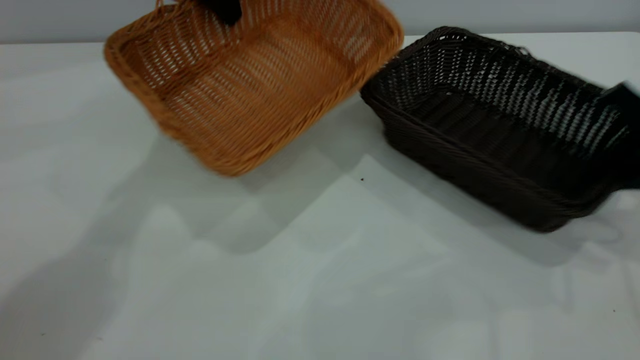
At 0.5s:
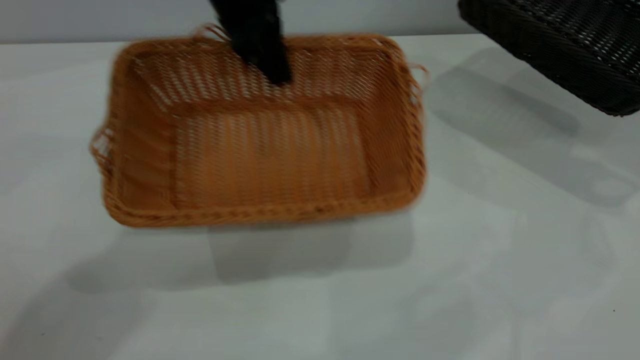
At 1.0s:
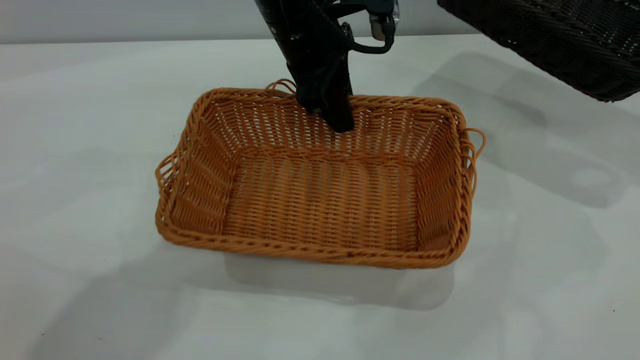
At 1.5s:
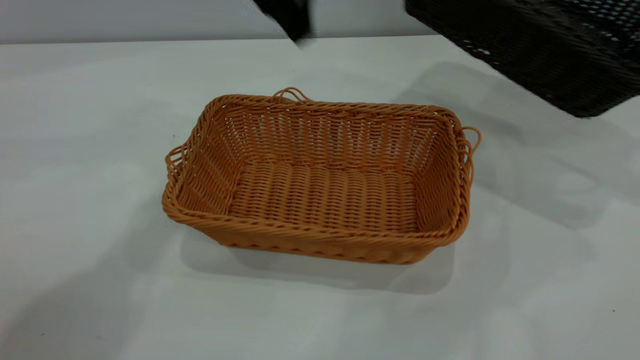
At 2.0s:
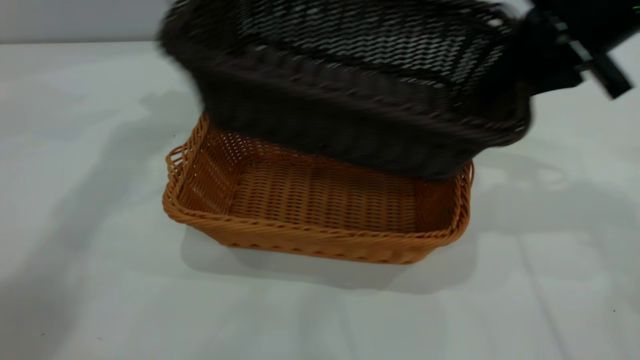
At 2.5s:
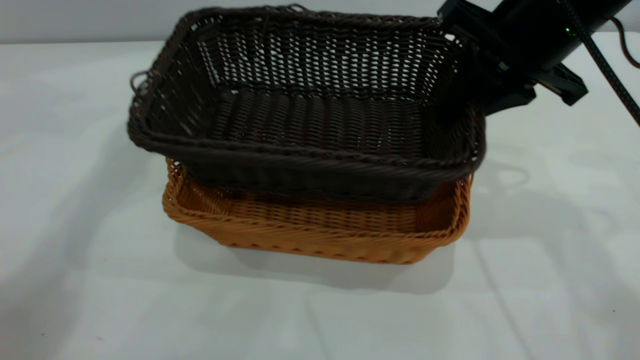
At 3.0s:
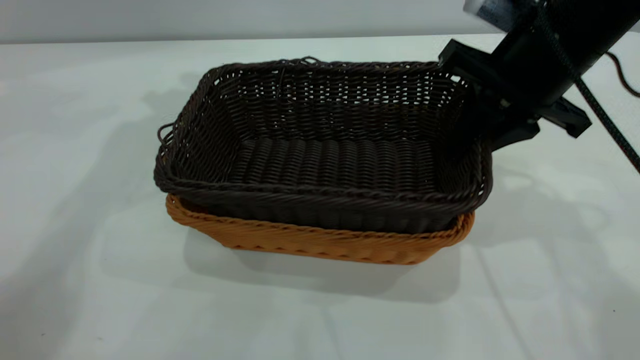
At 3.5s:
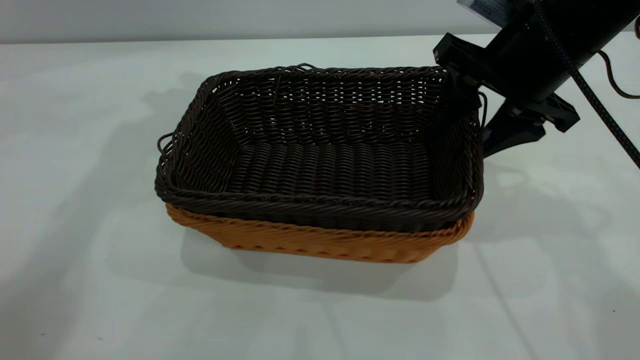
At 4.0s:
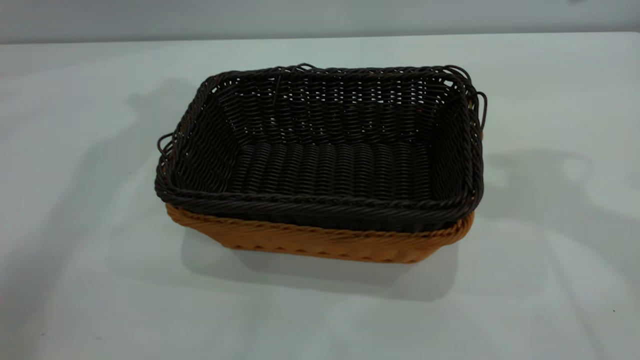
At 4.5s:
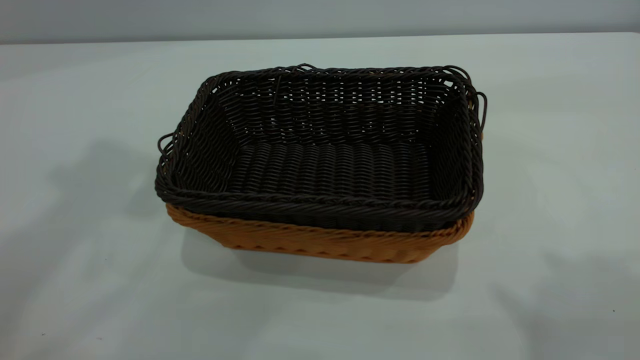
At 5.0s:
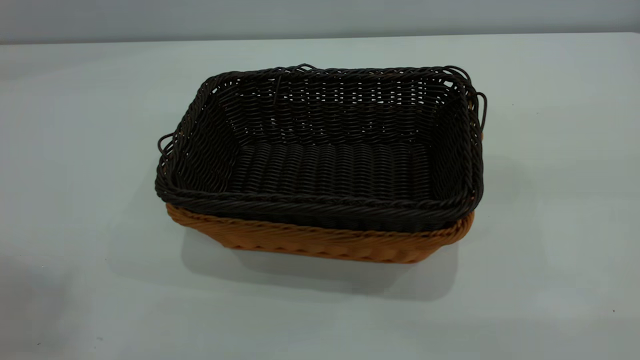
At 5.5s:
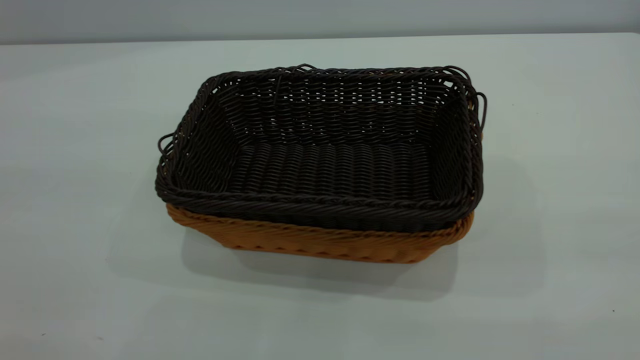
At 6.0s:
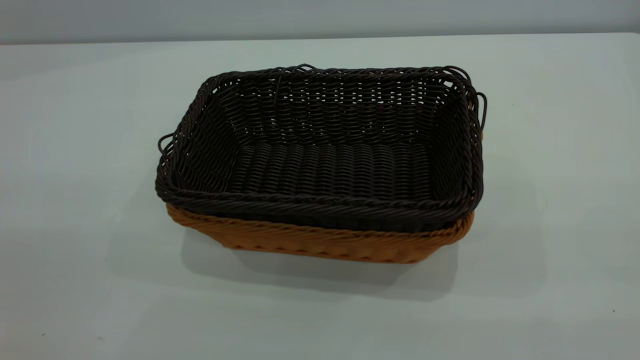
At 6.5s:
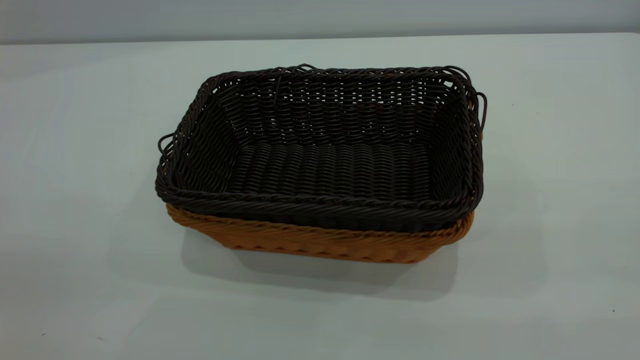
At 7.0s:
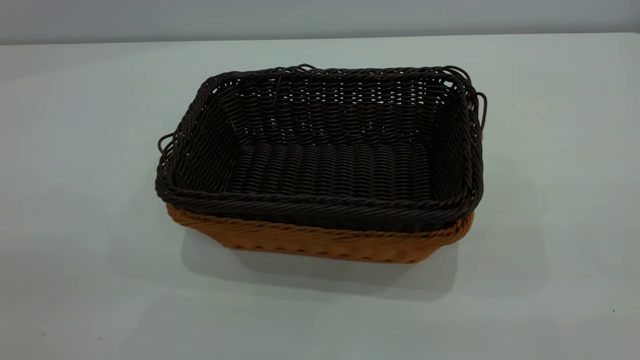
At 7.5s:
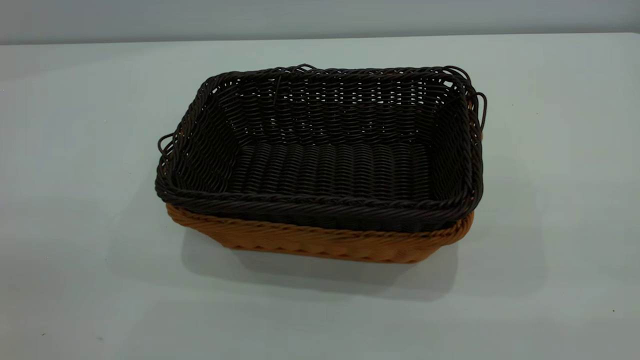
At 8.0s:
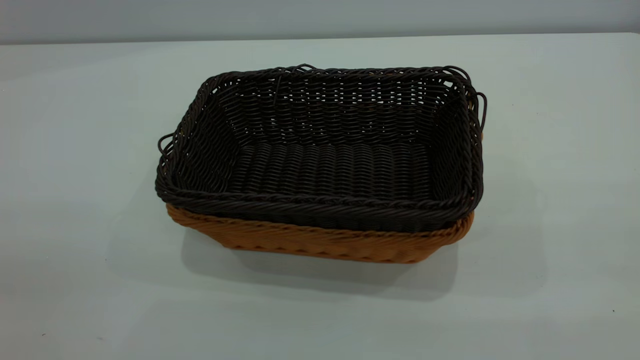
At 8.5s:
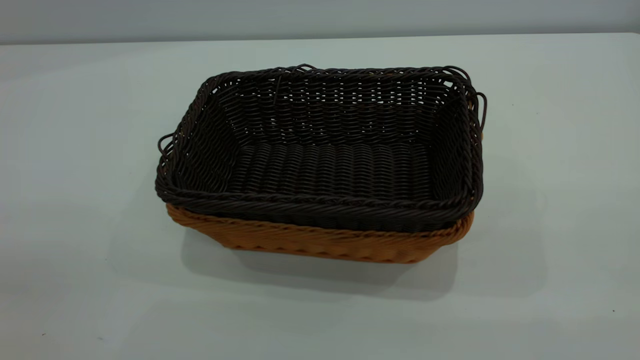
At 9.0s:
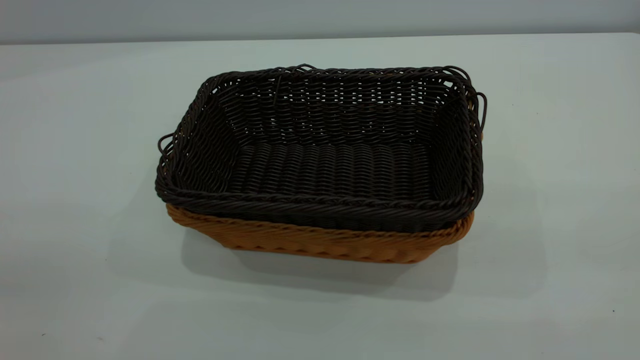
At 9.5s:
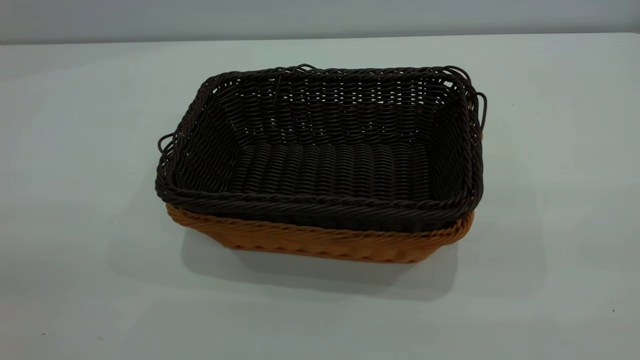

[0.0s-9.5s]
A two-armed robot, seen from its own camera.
Task of the whole recording: the left gripper grasp the brown basket and place it in the center of the table, the right gripper grasp the black basket and place it inside the brown one.
Step, 0.5s to 1.0s: Place the light-colored basket in the center.
Step, 2.0s to 3.5s: Place the dark basket on top of the light basket.
0.0s to 2.0s: The right gripper shifts roughly 15 cm to the left and upward. The left gripper goes roughly 5 cm upward, goes to the right and returns, about 10 cm each way, and opens its fingers.
2.0s to 4.0s: The grippers both shift upward by some 10 cm. The right gripper opens its fingers.
